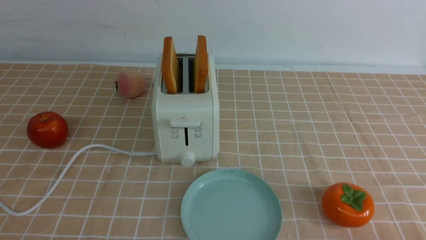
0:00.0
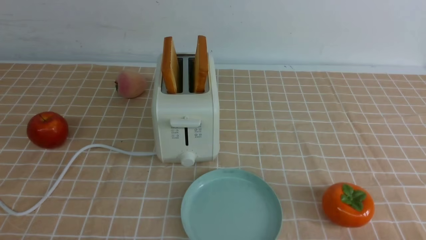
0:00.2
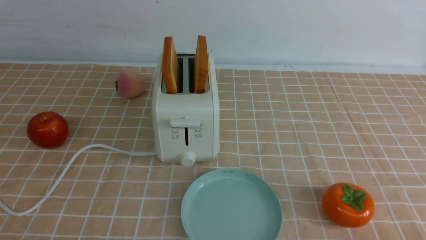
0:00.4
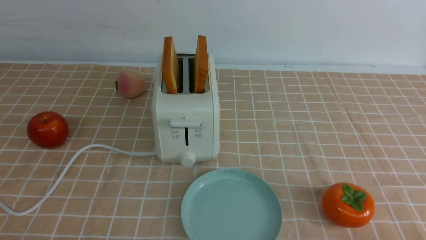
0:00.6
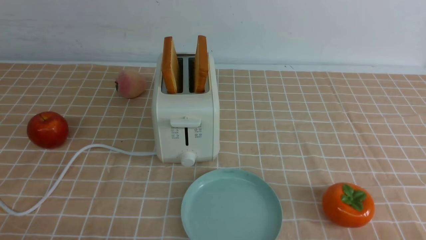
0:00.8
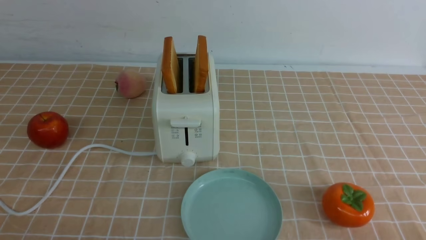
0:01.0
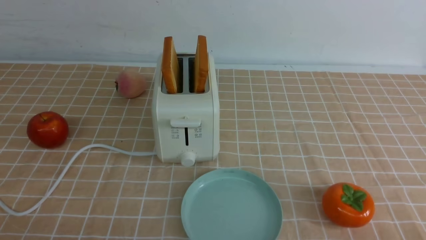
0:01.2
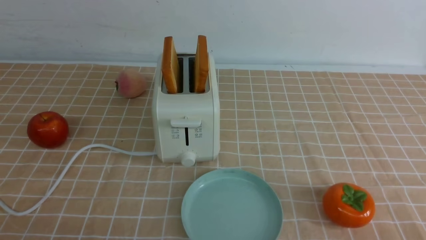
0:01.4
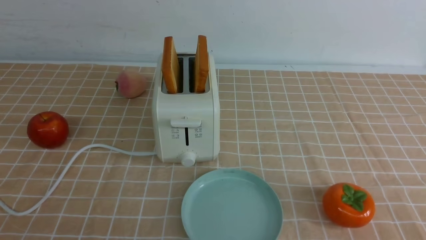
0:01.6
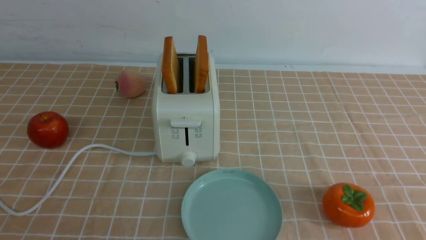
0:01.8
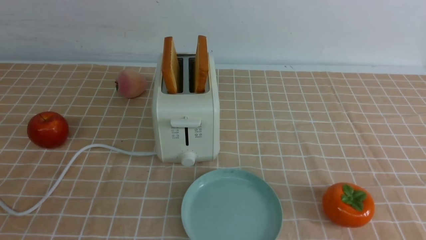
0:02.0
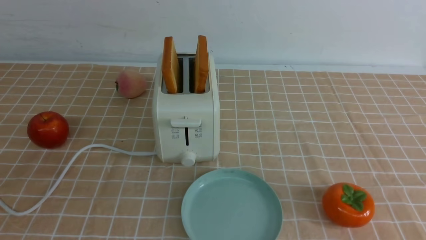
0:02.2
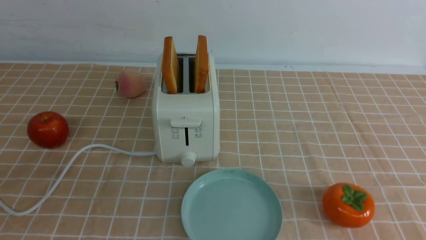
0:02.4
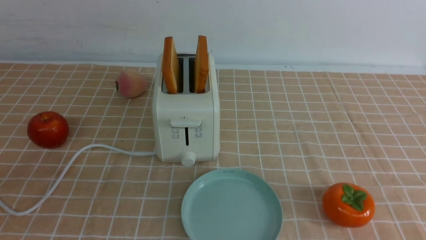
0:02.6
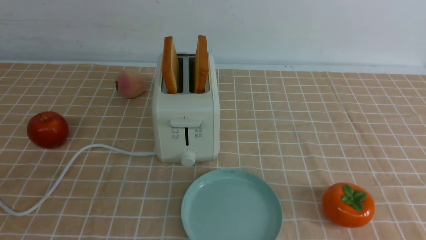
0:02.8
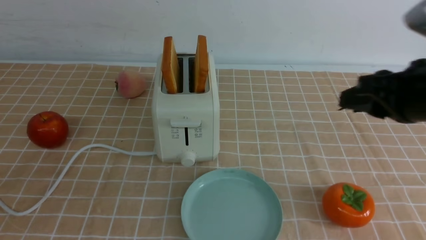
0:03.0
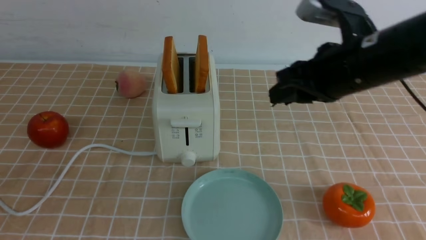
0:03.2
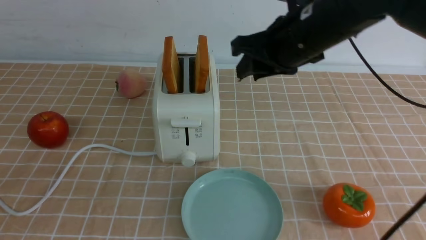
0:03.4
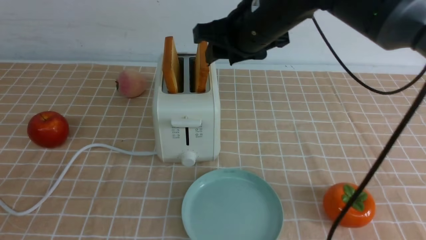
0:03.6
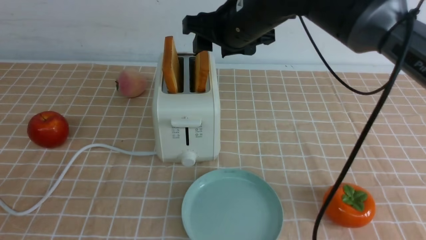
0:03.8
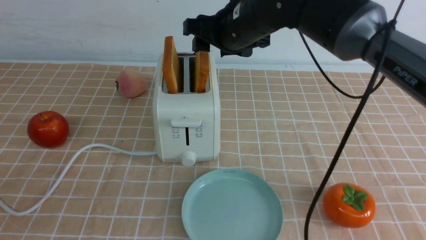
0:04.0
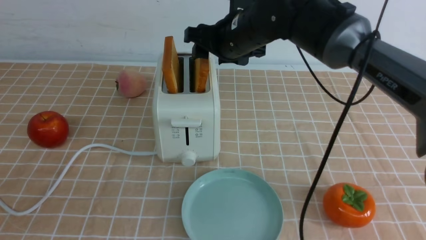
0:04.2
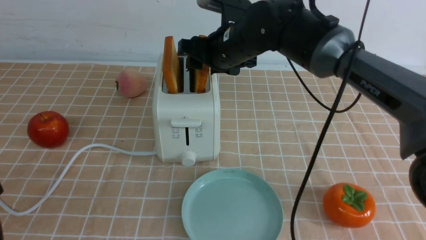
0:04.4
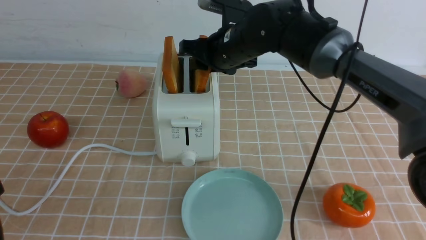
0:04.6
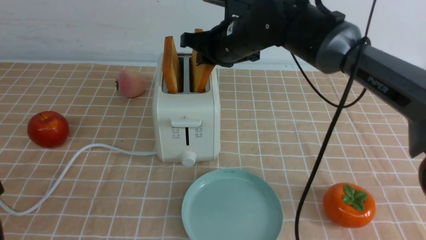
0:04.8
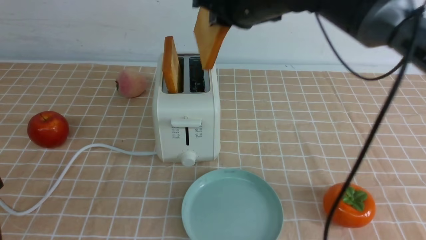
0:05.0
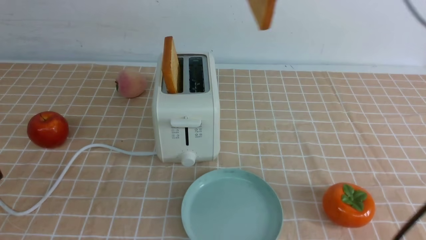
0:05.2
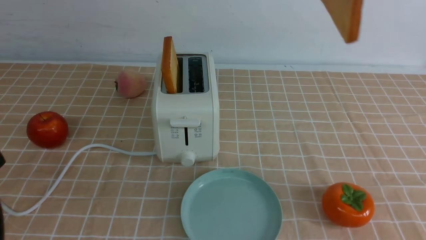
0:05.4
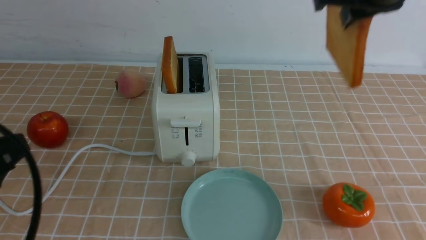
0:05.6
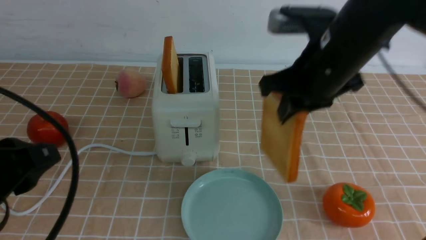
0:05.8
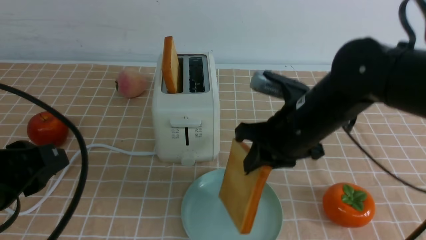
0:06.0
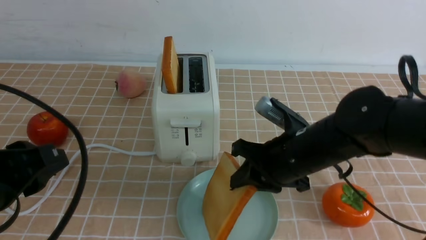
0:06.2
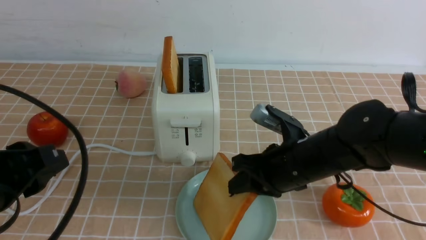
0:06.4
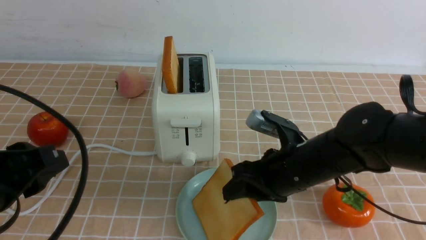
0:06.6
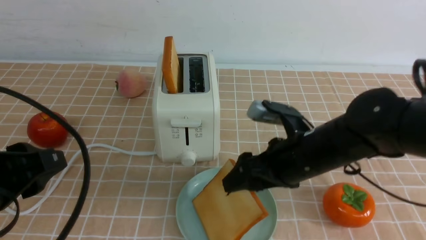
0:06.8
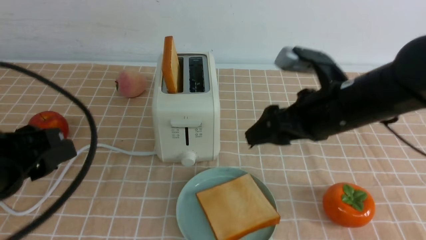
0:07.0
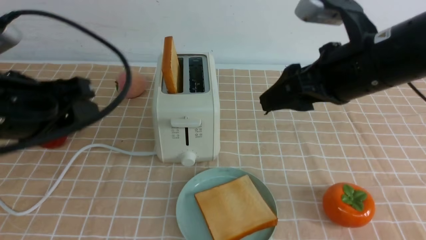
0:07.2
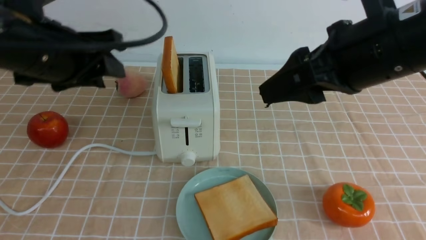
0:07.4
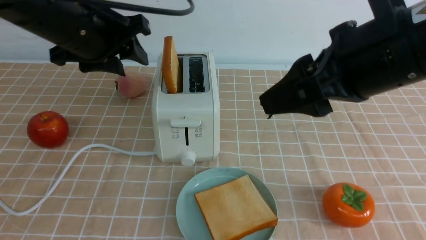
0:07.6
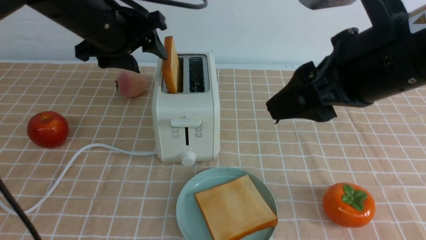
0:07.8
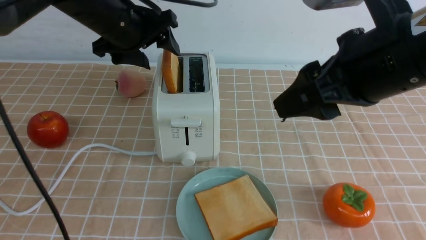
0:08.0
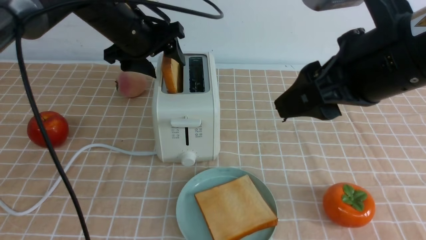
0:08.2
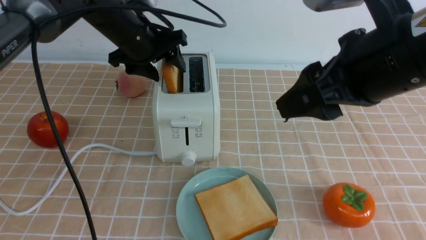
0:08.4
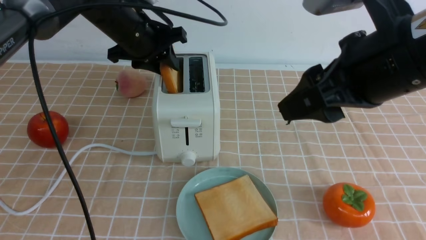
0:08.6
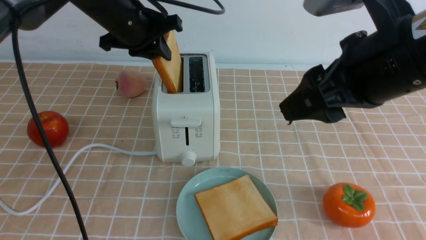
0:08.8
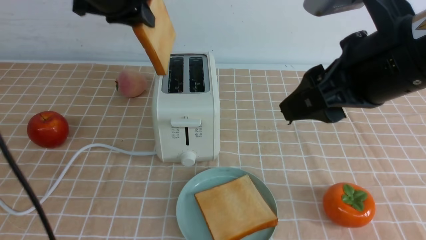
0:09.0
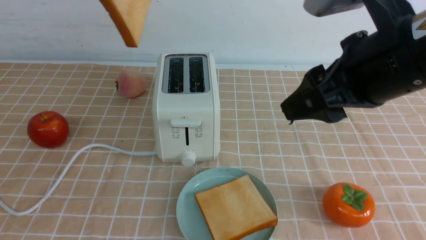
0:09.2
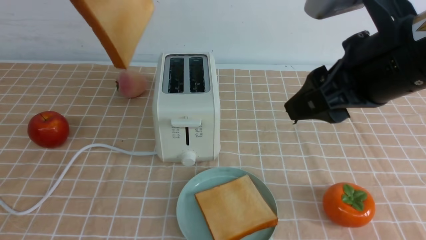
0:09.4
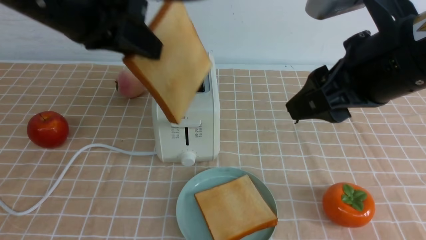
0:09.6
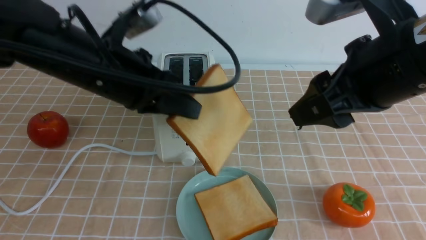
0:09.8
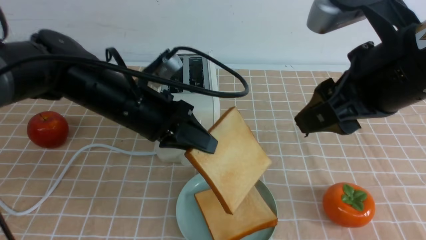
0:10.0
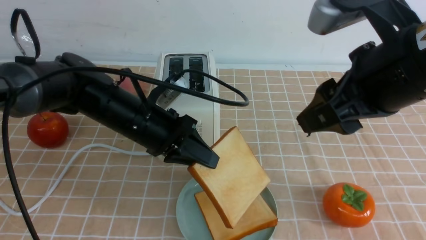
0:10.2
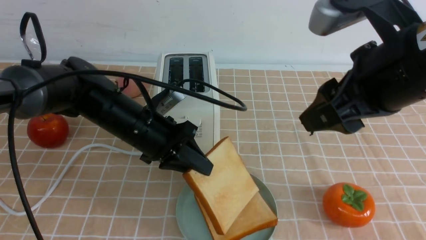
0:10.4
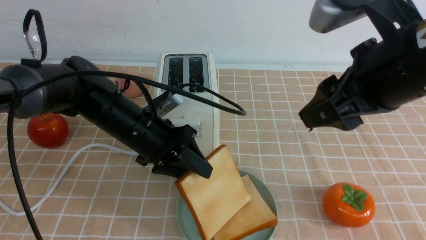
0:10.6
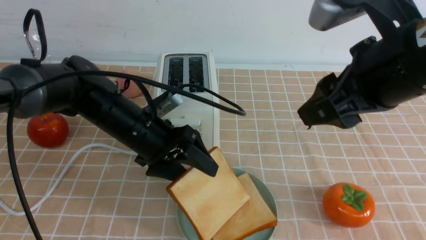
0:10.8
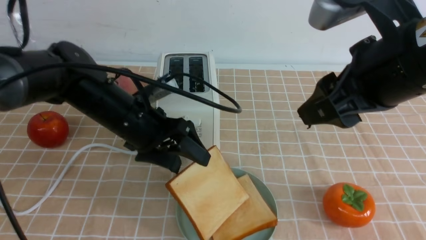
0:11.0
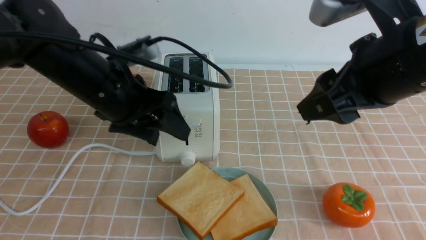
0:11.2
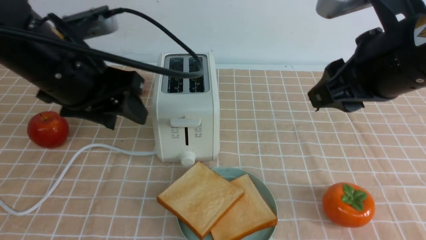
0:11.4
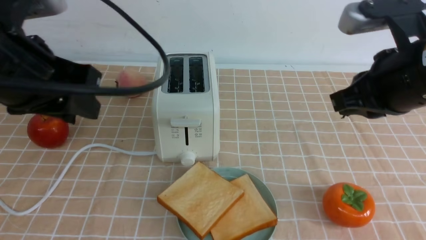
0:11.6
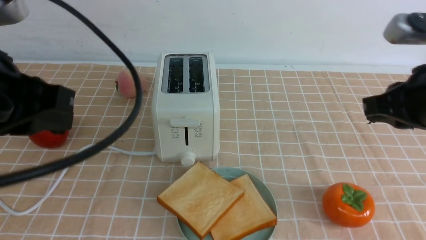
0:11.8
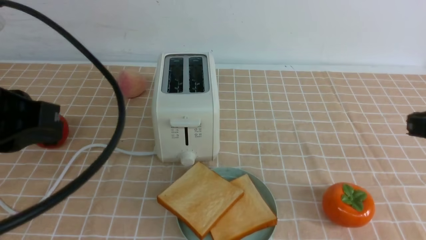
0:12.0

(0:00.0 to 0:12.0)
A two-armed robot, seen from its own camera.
Task of the whole recording: take toasted bread from bread machine on light coffee tablecloth place on plate.
Step, 0:00.0 - 0:04.8: use the right arm to take out a slice of bread.
Step, 0:05.0 - 0:06.8: use the right arm to put a slice of bread into the plate.
Step, 0:07.0 - 0:08.8: use the left arm to take out a slice of bread.
Step, 0:09.0 - 0:11.2: use the left arm to put a slice of bread into the empty plate.
0:01.6 - 0:03.0: The right gripper heads forward, upward and to the left, covering approximately 25 cm.
0:03.0 - 0:04.4: The right gripper heads to the left and forward, covering some 25 cm.
0:04.4 - 0:06.0: The left gripper is displaced forward by some 5 cm. Meanwhile the right gripper is displaced backward and to the right by roughly 15 cm, travels upward and back again, some 15 cm each way, and closes up.
0:06.0 - 0:07.6: The left gripper is displaced forward by about 20 cm. Meanwhile the right gripper goes approximately 15 cm upward and backward, and opens up.
0:07.6 - 0:09.0: The left gripper goes about 5 cm upward, and closes.
0:09.0 - 0:10.4: The left gripper travels downward by about 20 cm.
0:10.4 - 0:12.0: The right gripper is displaced to the right and downward by approximately 15 cm, and closes its fingers. The left gripper heads backward, upward and to the left, covering some 25 cm, and opens, then closes again.

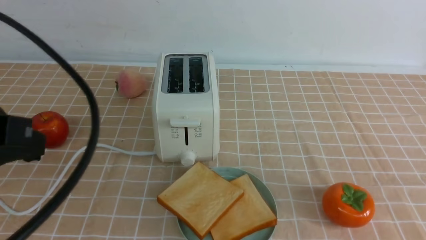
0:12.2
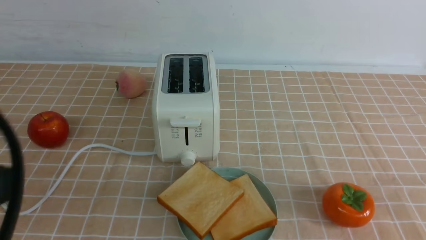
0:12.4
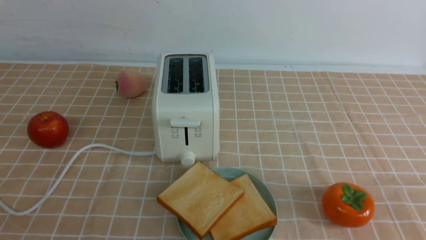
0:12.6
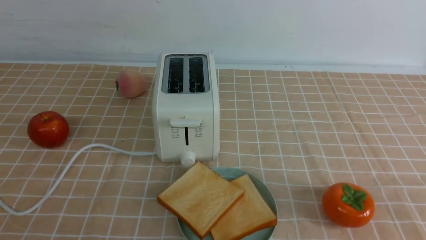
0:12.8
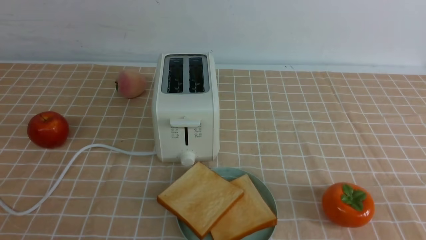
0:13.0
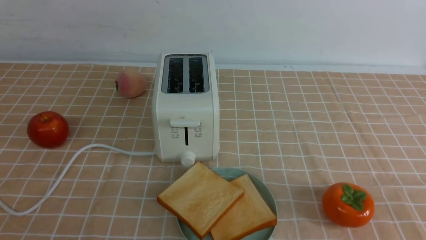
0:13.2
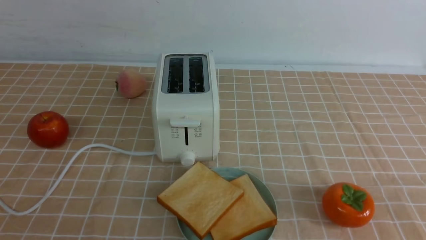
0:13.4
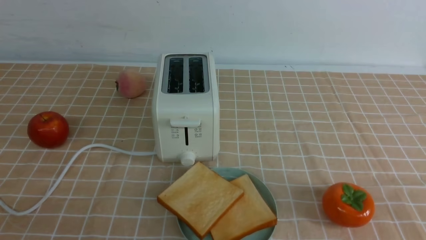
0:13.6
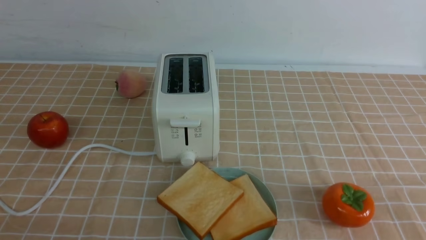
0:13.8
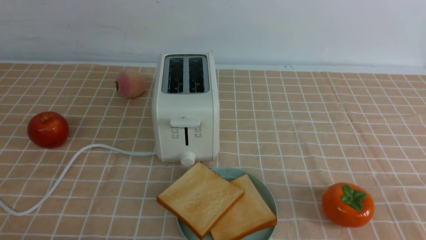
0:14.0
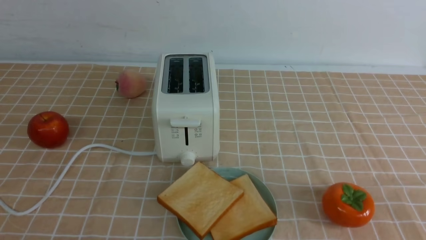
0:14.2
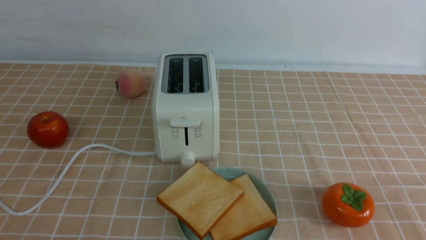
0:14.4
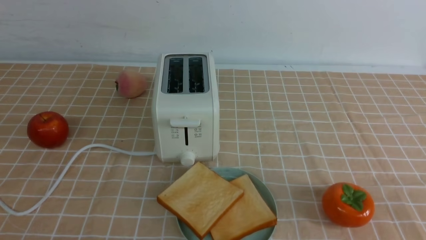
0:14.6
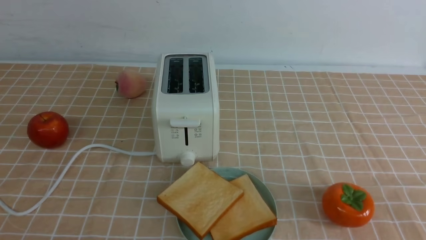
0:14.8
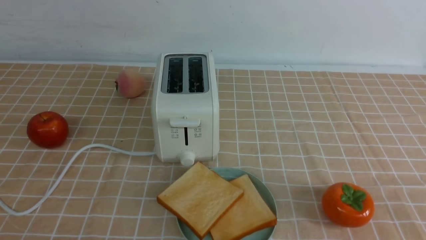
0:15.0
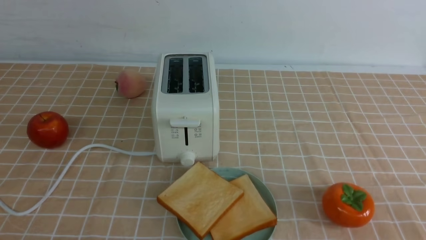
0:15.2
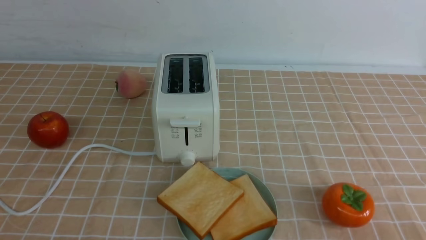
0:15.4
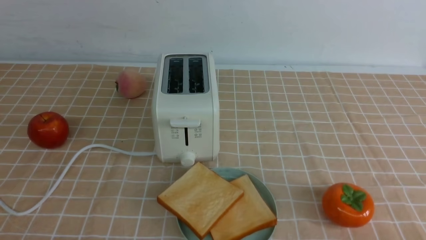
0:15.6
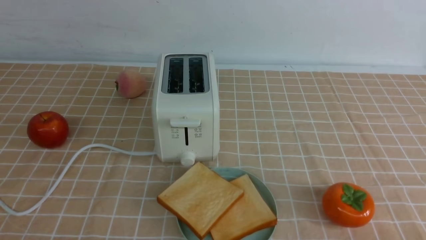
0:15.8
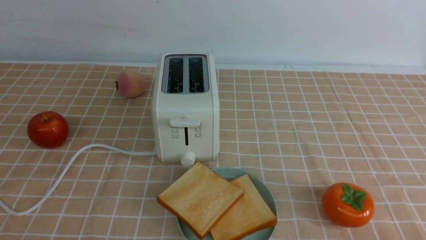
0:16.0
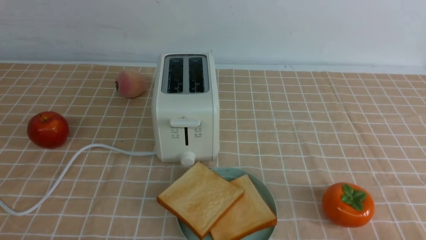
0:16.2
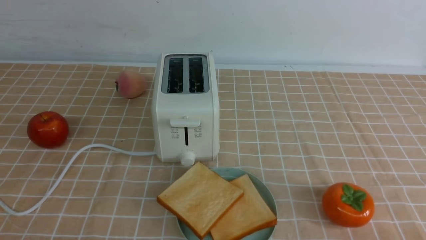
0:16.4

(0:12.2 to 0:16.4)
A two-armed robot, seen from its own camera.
Task of the whole recording: take toasted bread from bread machine on light coffee tablecloth place on plate.
0:12.2 - 0:13.6: The right gripper heads backward, covering some 5 cm, while the left gripper is displaced downward and backward by about 15 cm.
